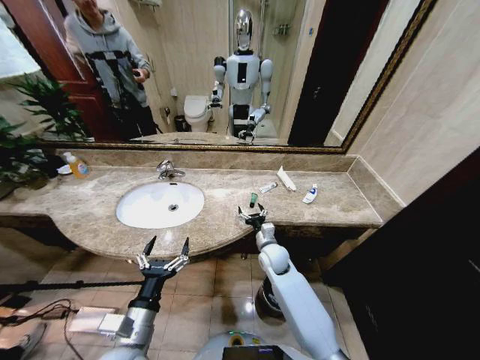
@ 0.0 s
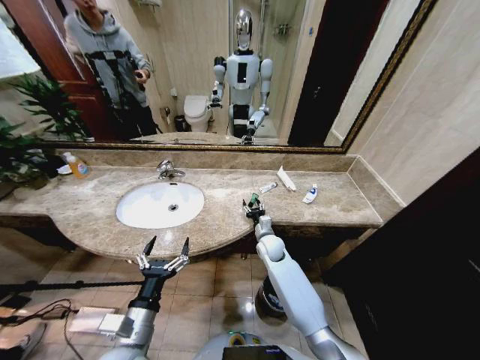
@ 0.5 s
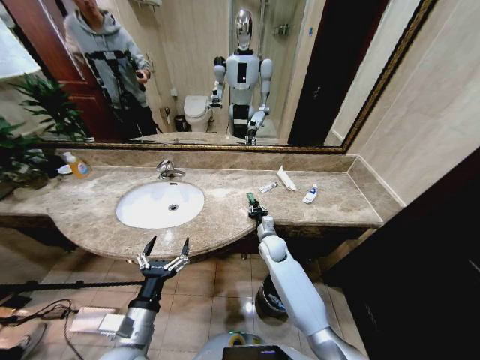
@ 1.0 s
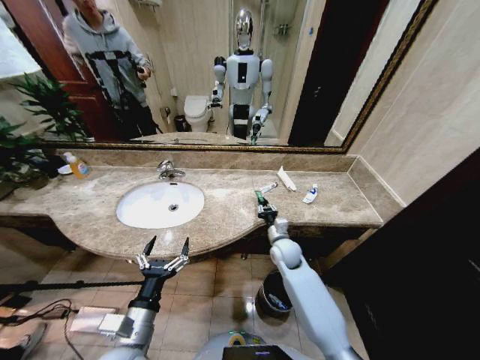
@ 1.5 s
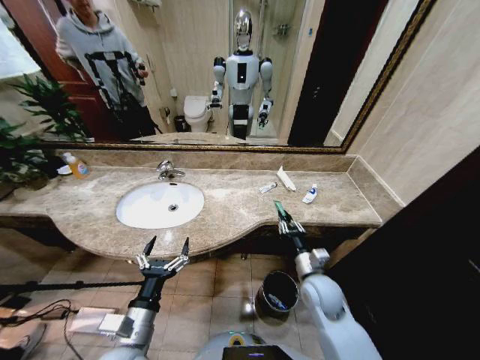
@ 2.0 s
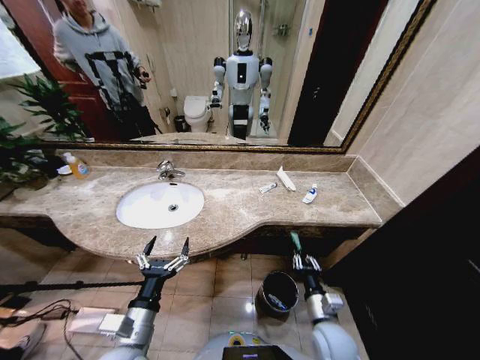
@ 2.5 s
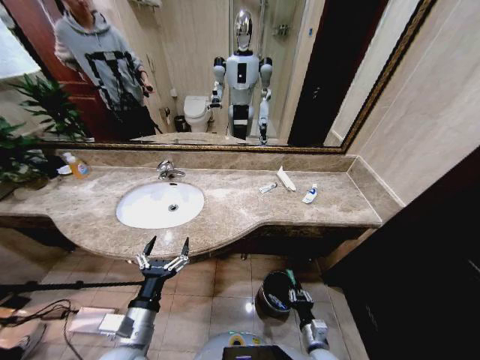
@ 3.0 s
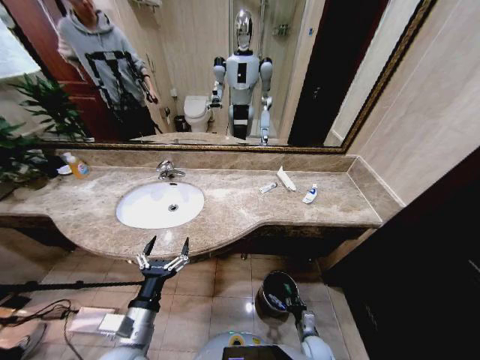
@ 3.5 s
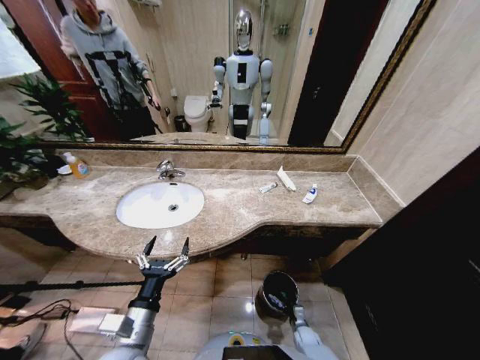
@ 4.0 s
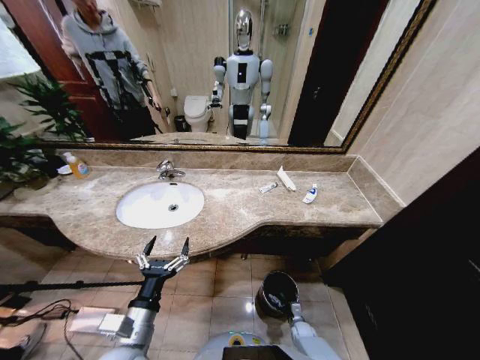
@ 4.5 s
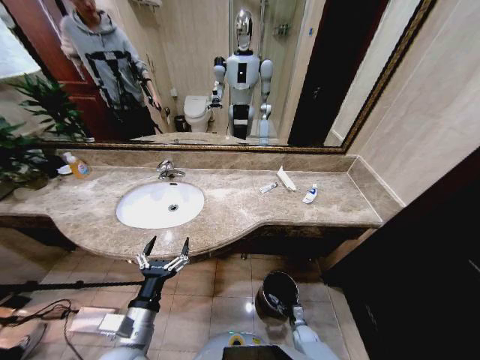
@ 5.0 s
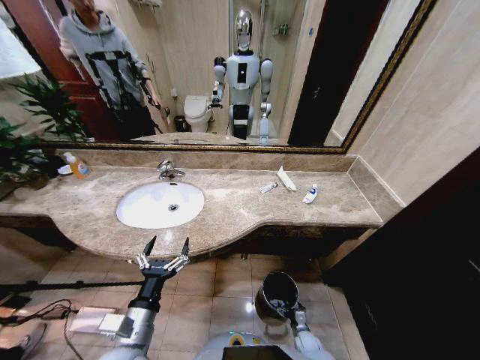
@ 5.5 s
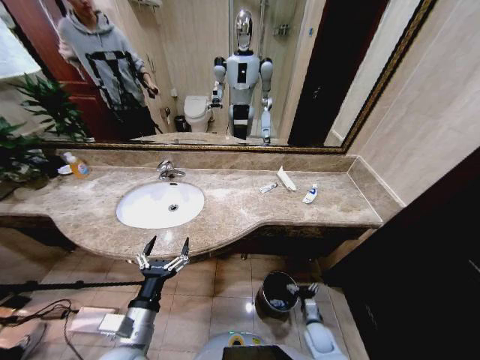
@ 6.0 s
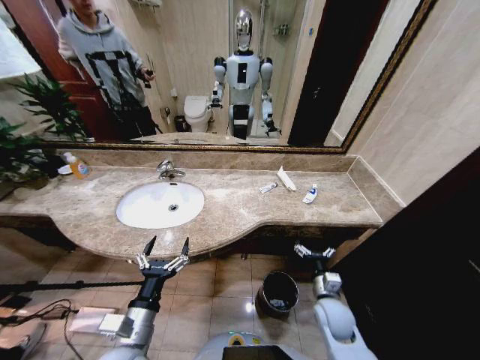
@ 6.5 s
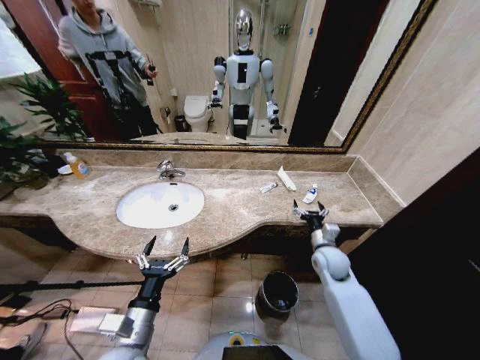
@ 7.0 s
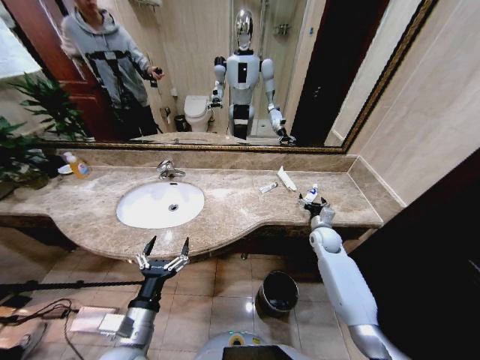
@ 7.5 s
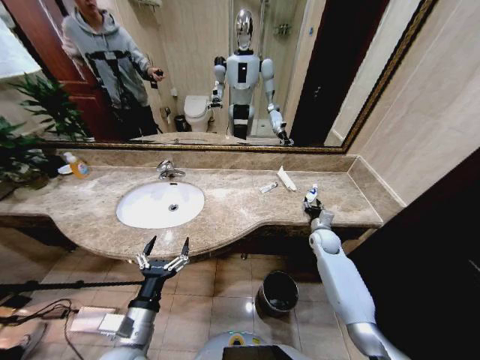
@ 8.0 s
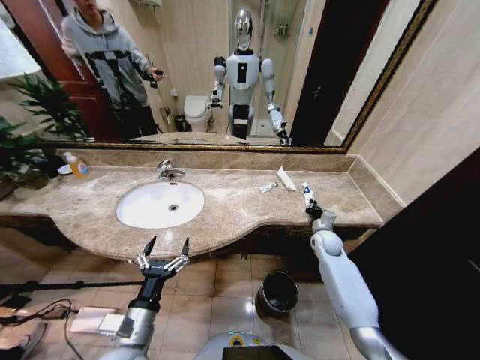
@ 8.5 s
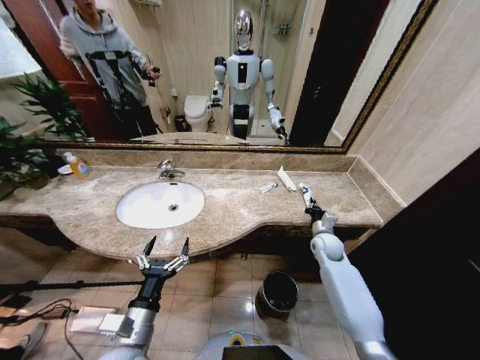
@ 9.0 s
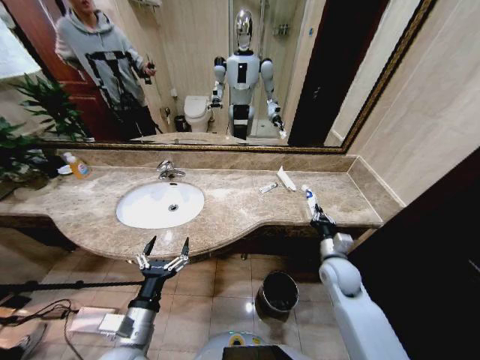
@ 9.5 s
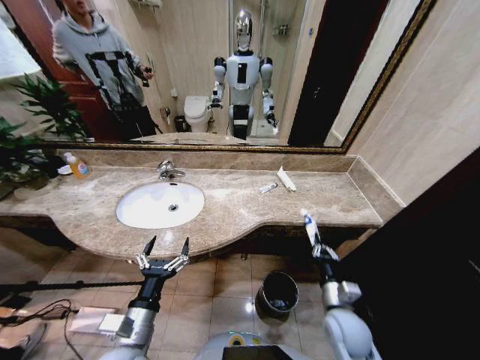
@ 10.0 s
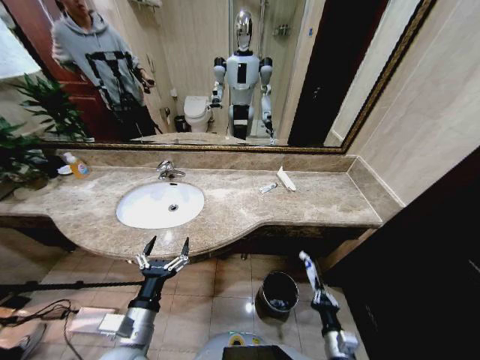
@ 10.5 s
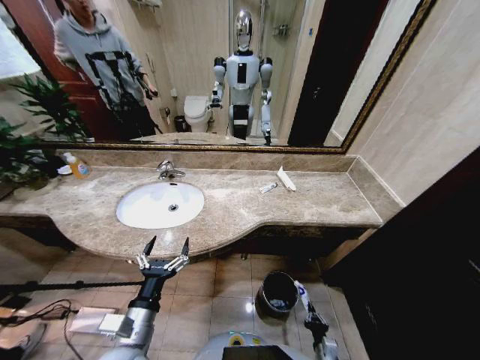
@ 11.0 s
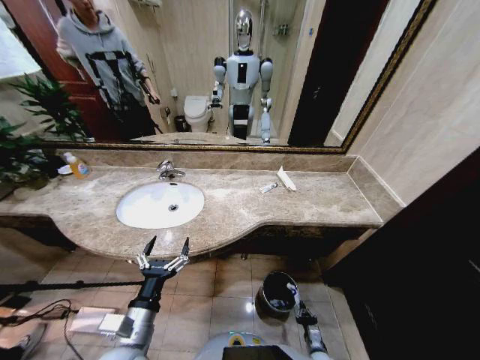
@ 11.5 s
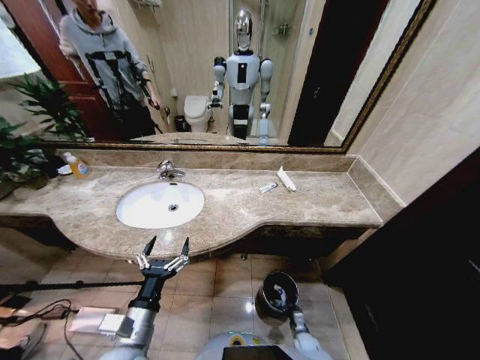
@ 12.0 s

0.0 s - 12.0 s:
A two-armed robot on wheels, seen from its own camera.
Task of the whole recording: Pick up the trash from the sink and place it in the trash bin.
0.0 s - 2.0 s: The right gripper heads backward and to the right, covering some 15 cm, and closes.
2.0 s - 4.0 s: The right gripper goes roughly 35 cm downward.
4.0 s - 6.0 s: The right gripper heads upward, covering about 10 cm, and opens.
6.0 s - 8.0 s: The right gripper travels forward and upward by roughly 35 cm, and closes up.
8.0 s - 10.0 s: The right gripper is displaced backward by approximately 25 cm, and closes up.
10.0 s - 12.0 s: The right gripper goes about 35 cm downward.

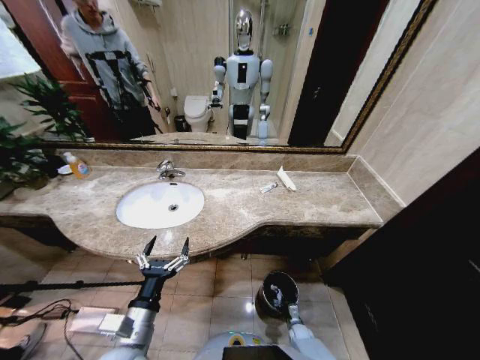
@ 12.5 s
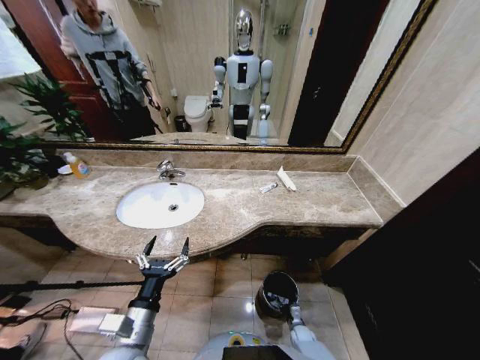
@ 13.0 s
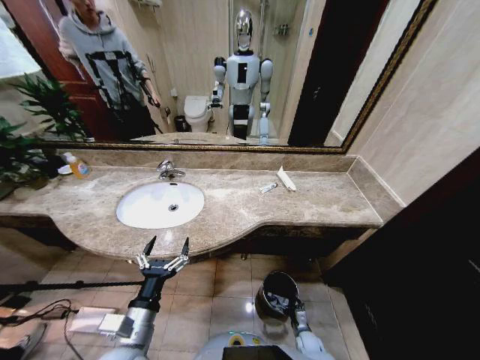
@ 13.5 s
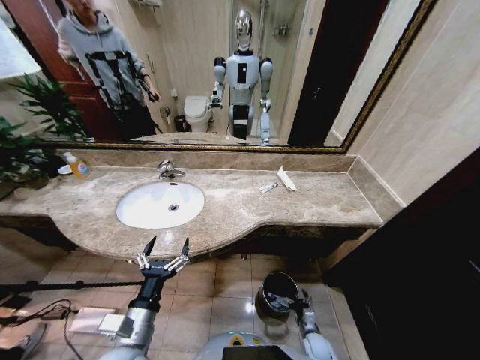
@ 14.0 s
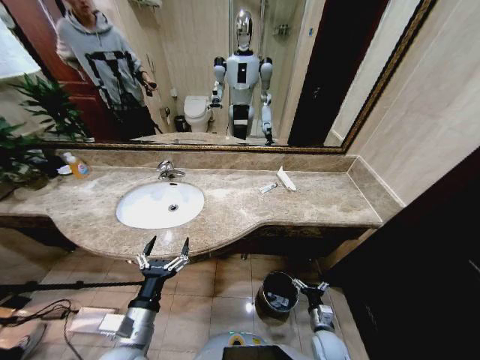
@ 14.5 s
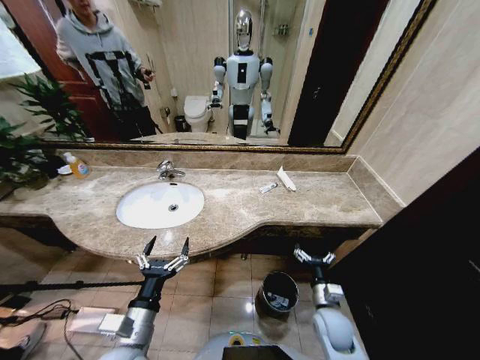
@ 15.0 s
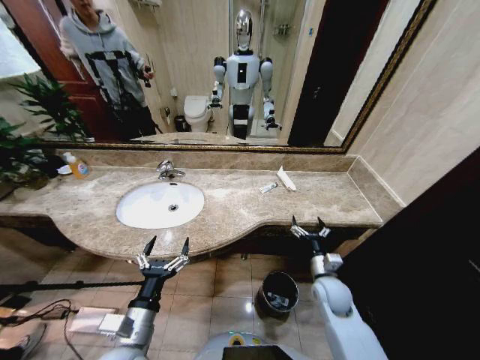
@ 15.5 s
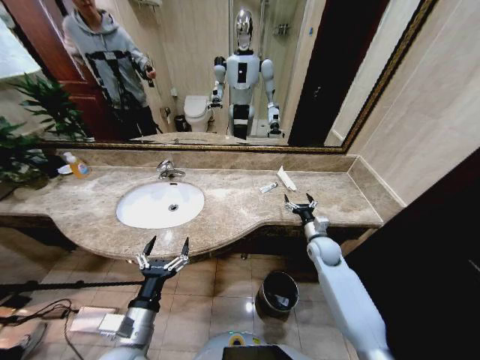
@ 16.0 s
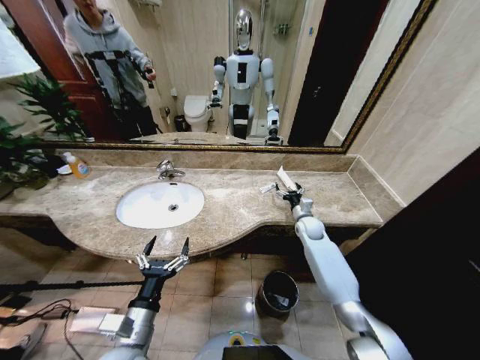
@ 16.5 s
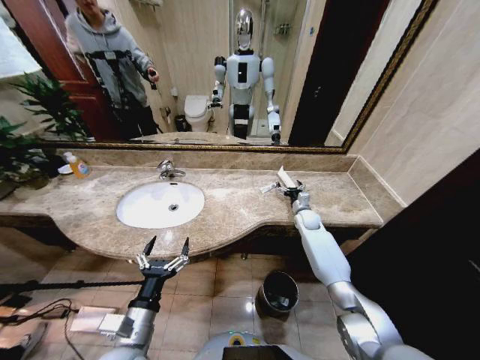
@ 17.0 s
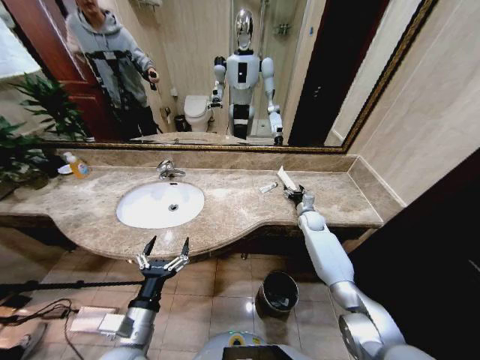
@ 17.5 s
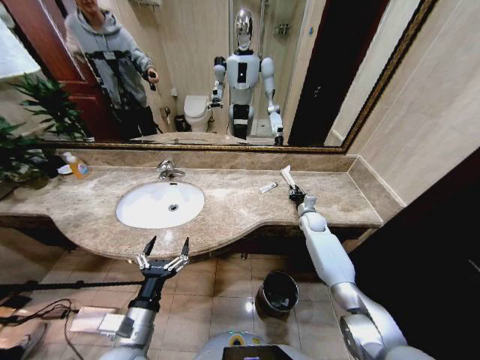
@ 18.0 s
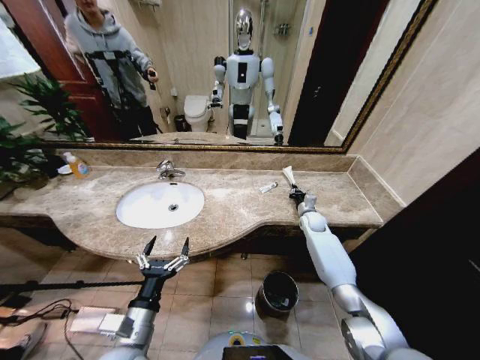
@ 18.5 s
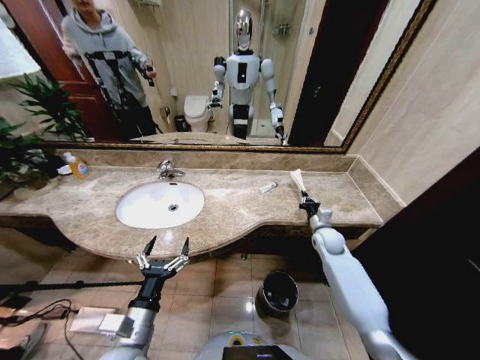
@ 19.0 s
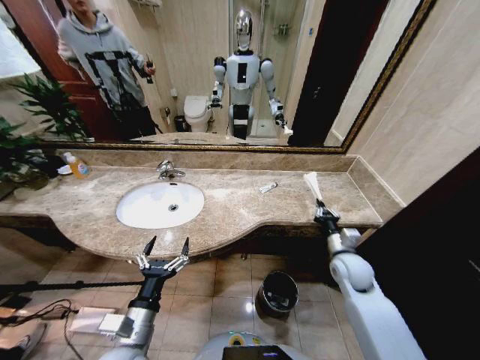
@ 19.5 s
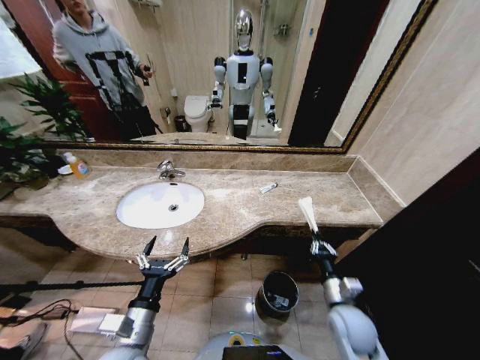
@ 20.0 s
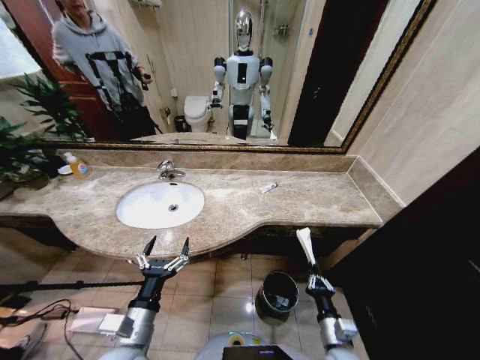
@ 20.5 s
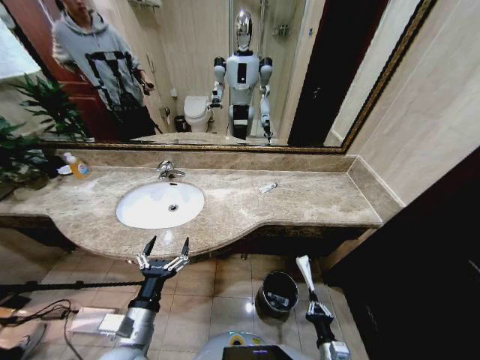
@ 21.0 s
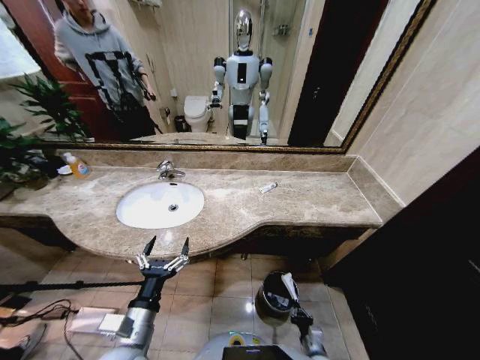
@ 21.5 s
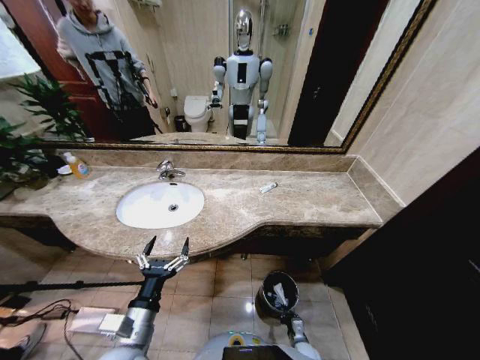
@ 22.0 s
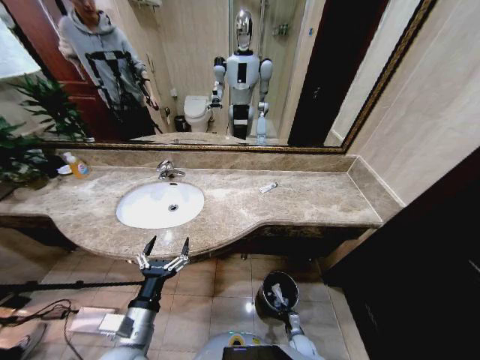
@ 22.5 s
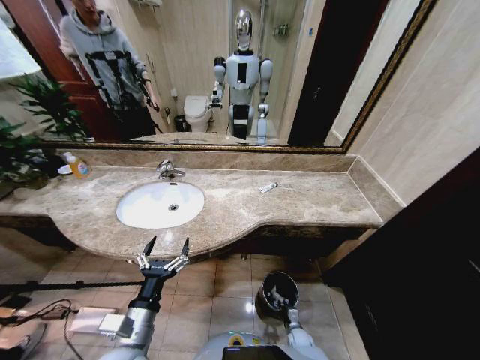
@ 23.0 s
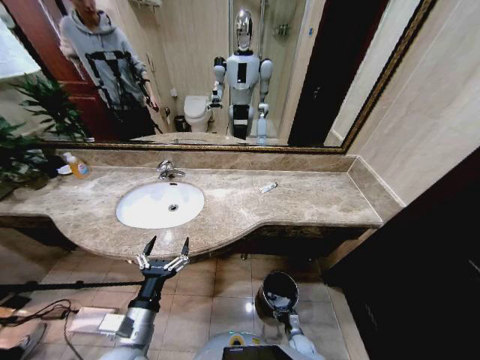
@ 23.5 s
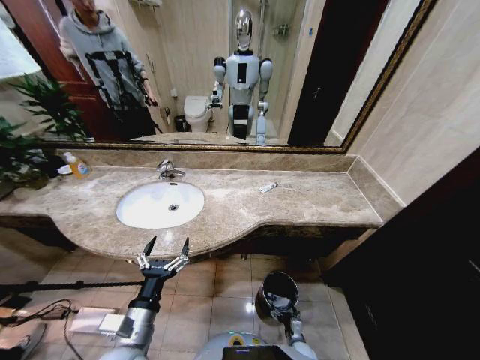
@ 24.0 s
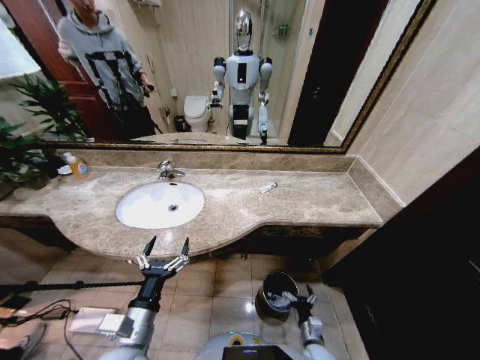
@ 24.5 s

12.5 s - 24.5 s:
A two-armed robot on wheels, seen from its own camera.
Task of the whole recording: Pick up the trash from the sink and place it in the trash bin.
12.5 s - 14.5 s: The right gripper heads upward, covering some 15 cm, and opens.
14.5 s - 16.5 s: The right gripper goes some 40 cm forward and upward.
16.5 s - 18.5 s: The right gripper closes.
18.5 s - 20.5 s: The right gripper travels backward by approximately 40 cm.
20.5 s - 22.5 s: The right gripper goes approximately 25 cm downward.
22.5 s - 24.5 s: The right gripper shifts roughly 10 cm upward, and opens its fingers.

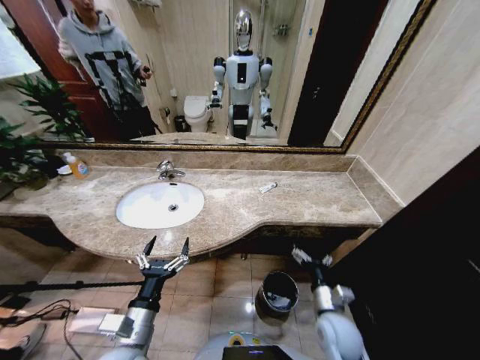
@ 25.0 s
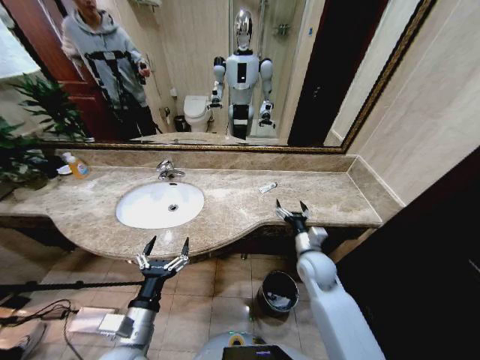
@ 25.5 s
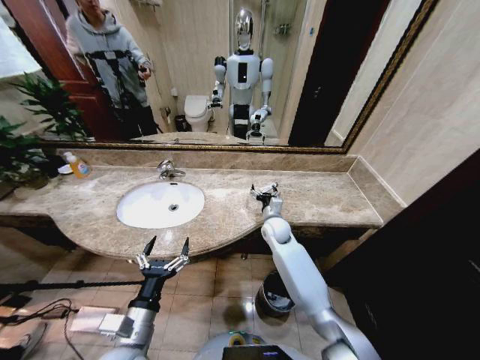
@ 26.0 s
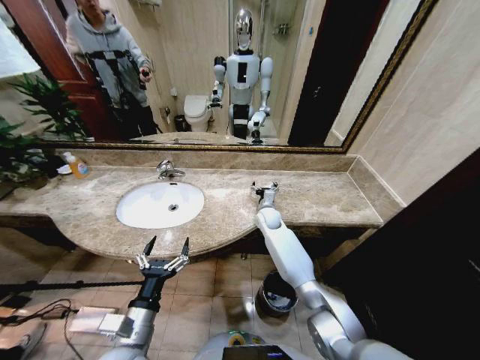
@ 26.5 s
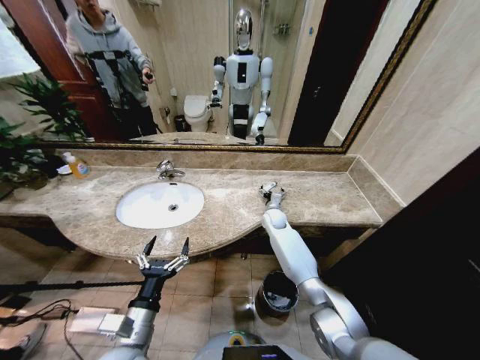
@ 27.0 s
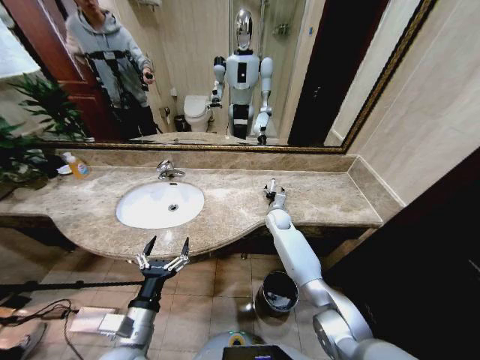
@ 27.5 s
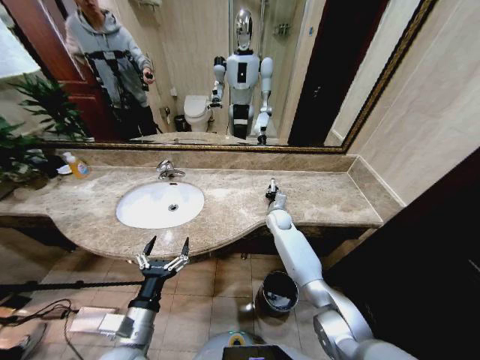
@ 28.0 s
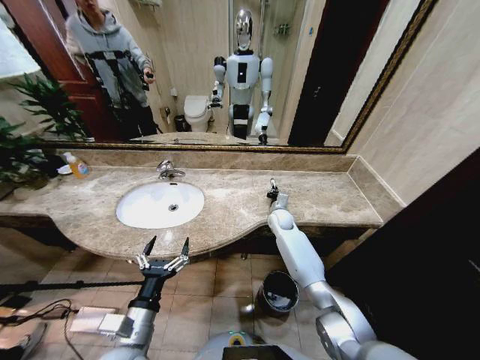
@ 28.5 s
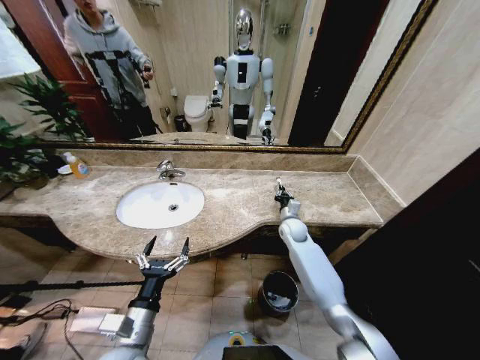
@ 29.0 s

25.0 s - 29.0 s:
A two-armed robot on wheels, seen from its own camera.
Task of the whole recording: Pick up the trash from the sink and place it in the trash bin.
25.0 s - 27.0 s: The right gripper heads forward, covering some 35 cm.
27.0 s - 29.0 s: The right gripper is displaced backward and to the right by about 10 cm, and closes.
